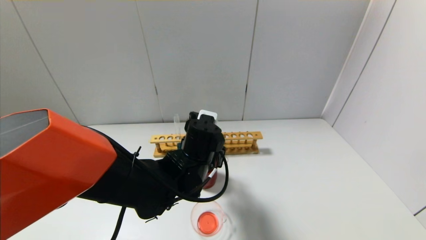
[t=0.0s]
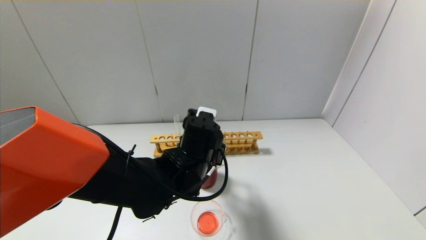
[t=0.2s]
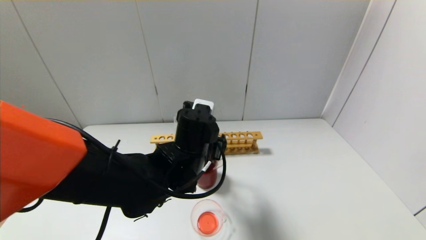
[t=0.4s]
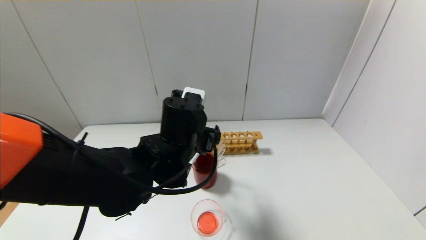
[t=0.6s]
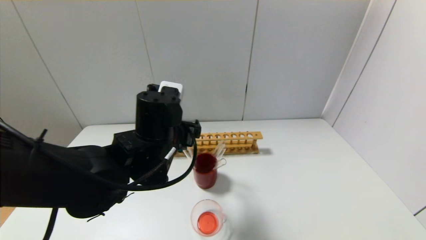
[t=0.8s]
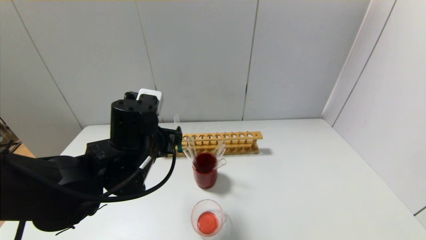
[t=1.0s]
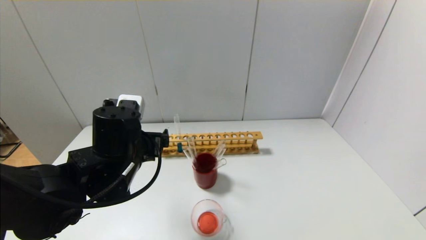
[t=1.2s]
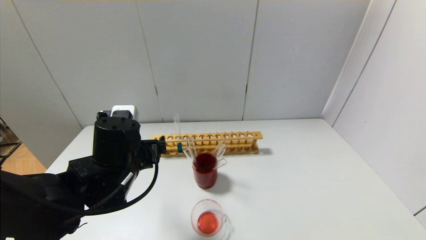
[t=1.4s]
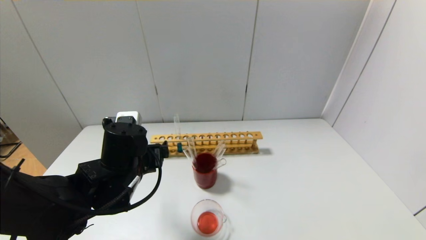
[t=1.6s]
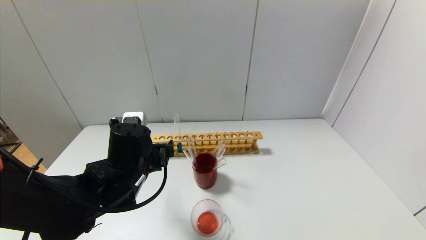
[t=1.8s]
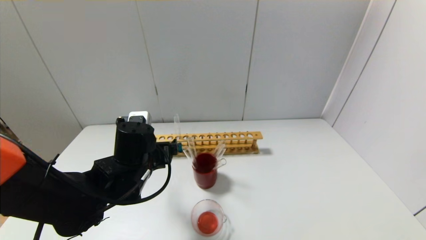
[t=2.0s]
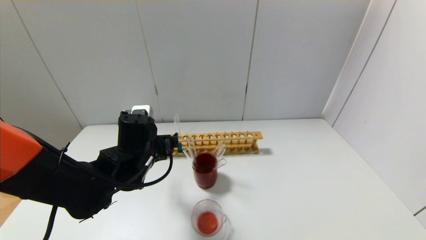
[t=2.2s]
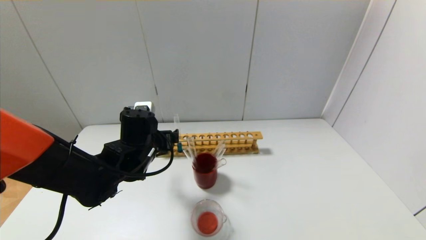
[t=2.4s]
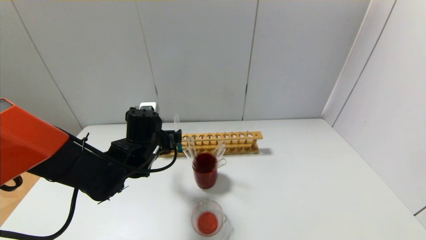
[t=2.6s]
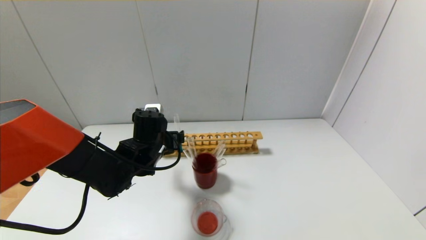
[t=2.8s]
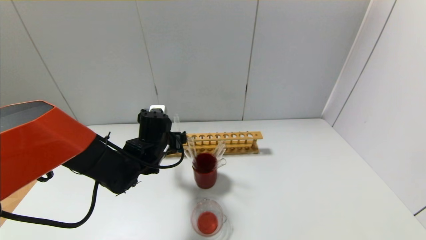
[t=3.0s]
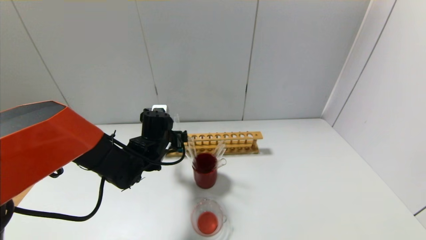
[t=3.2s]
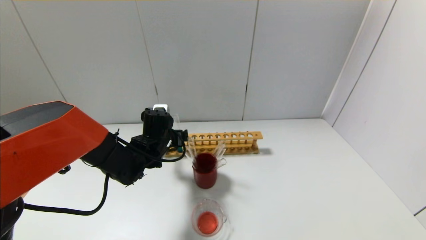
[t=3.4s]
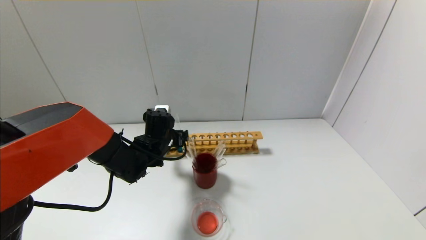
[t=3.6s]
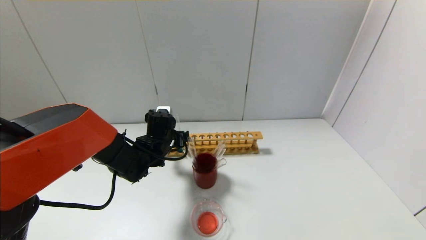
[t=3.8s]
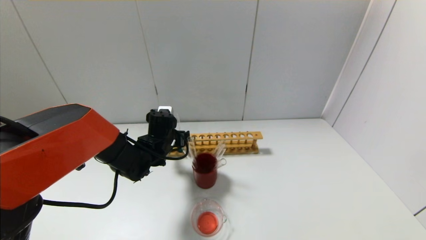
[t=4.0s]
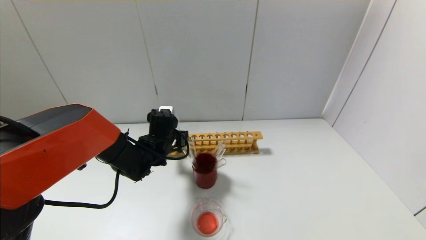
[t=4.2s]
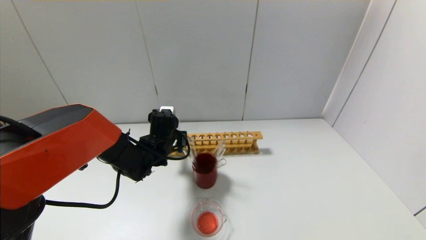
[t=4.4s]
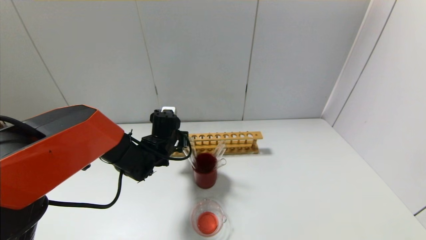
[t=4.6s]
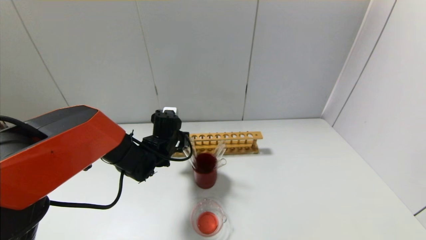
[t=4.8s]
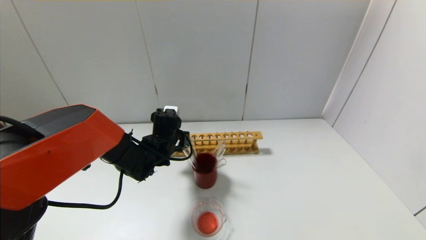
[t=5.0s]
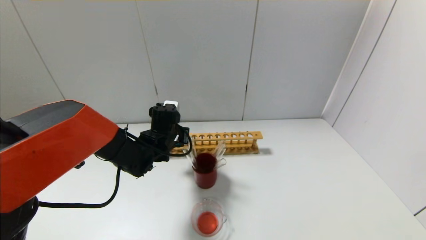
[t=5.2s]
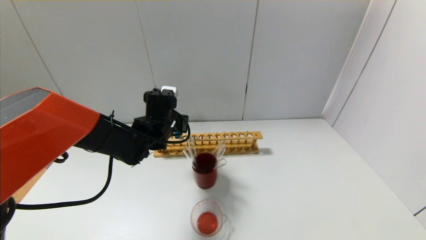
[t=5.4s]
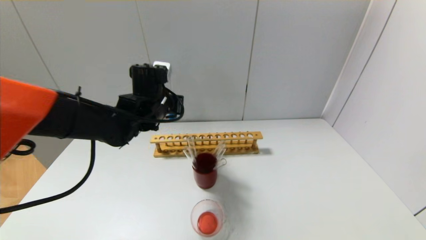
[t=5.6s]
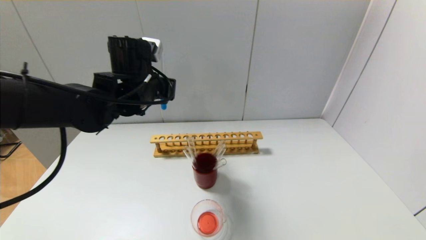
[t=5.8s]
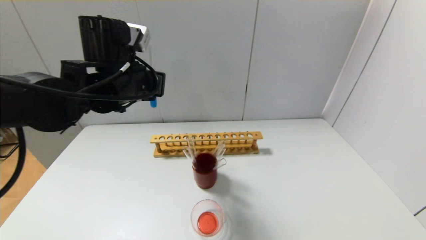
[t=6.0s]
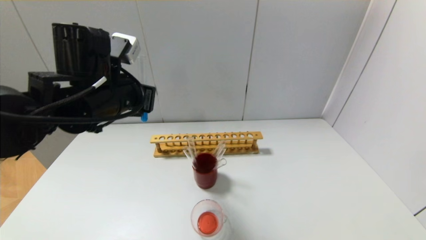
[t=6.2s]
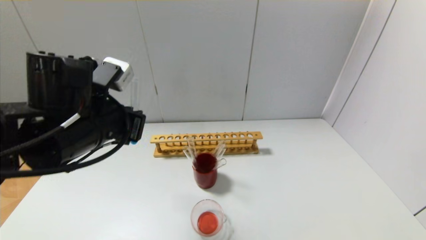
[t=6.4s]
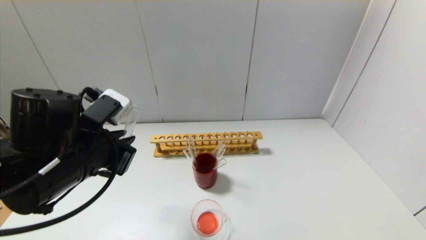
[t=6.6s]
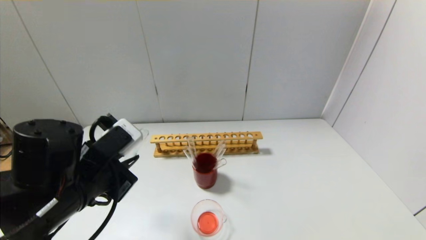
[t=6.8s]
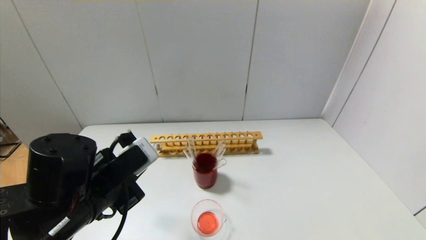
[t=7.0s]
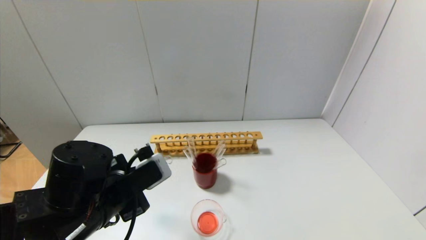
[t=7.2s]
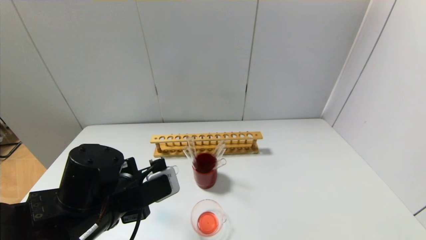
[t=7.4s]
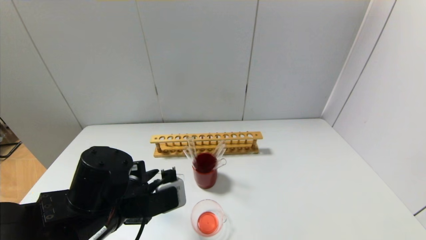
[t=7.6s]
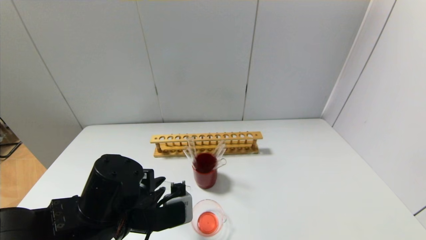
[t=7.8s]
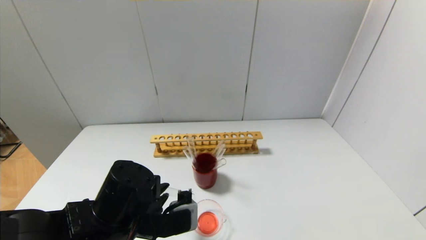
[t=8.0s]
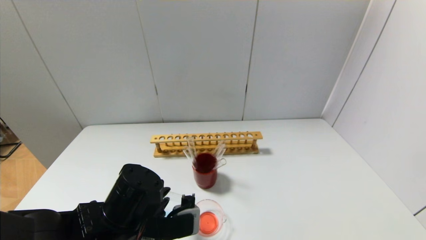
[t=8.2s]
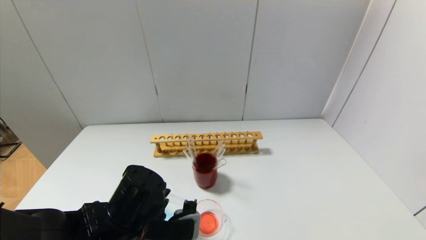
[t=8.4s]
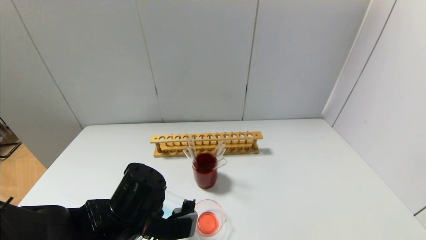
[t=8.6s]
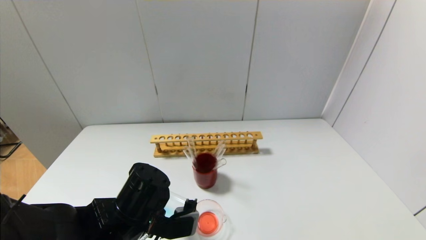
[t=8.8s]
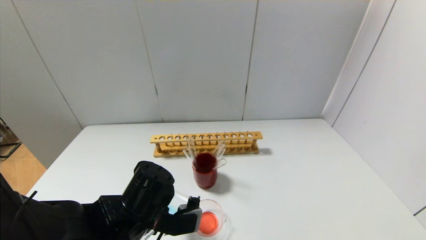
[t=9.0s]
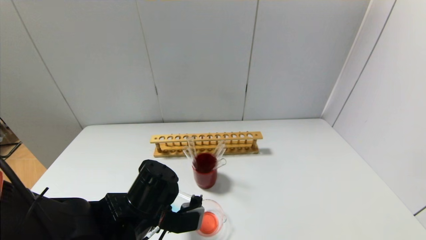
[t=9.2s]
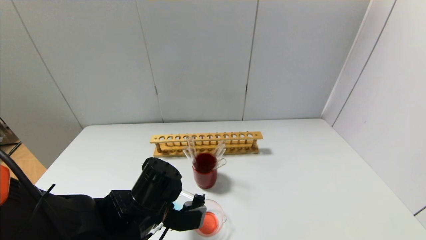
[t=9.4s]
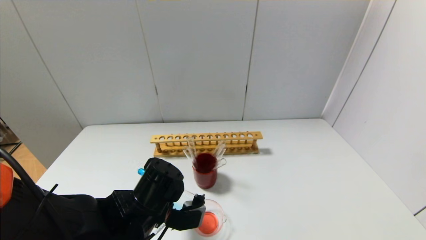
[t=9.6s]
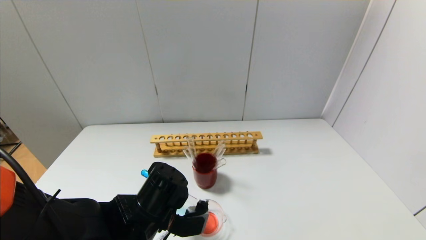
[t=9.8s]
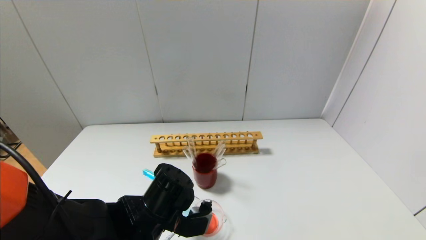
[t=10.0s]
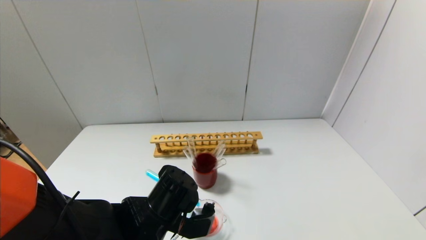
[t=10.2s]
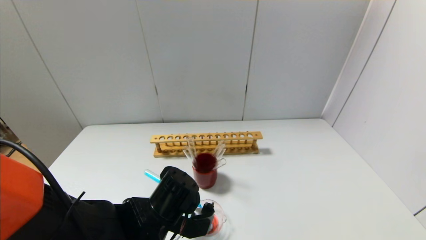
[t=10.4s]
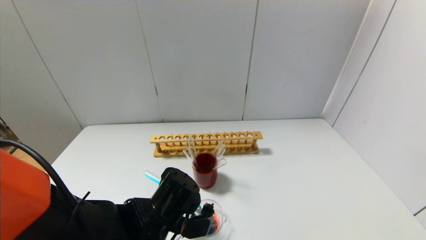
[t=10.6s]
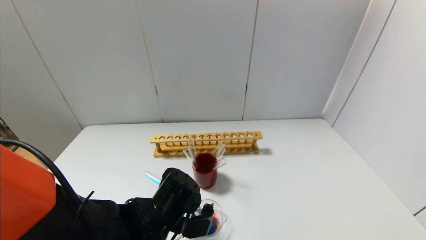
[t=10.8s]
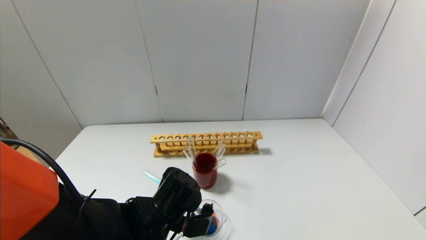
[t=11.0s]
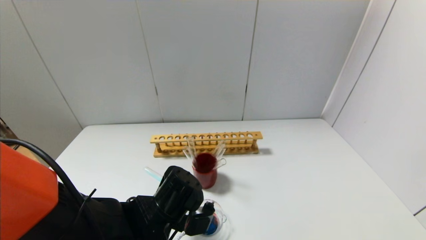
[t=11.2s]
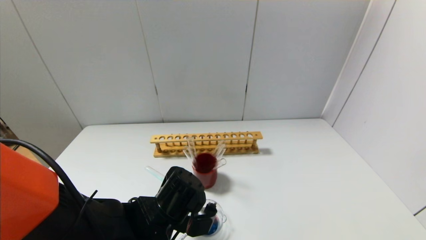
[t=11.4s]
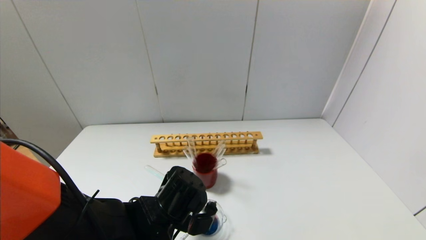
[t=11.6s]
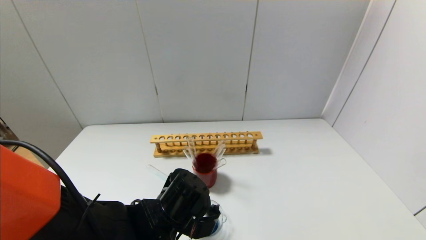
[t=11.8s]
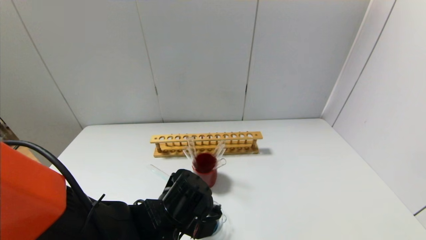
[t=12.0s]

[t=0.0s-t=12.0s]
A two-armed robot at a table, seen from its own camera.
Step, t=0.2s to t=4.8s: Grasp the blue reagent with the left gripper.
t=0.0s to t=1.6s: The left gripper shifts approximately 10 cm to the left, and opens its fingers.
t=1.6s to t=3.0s: The left gripper heads forward, covering some 10 cm.
t=3.0s to t=4.4s: The left gripper closes up.
t=4.4s to t=6.0s: The left gripper heads upward and backward, covering about 20 cm, and closes.
t=6.0s to t=7.6s: The left gripper heads downward and backward, covering some 20 cm.
t=7.6s to t=9.0s: The left gripper moves some 5 cm.
t=9.0s to t=12.0s: The grippers make only small movements.

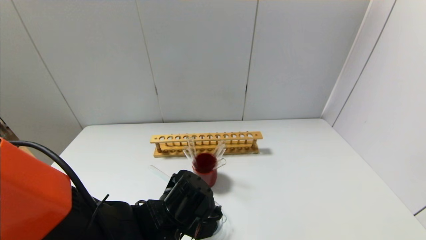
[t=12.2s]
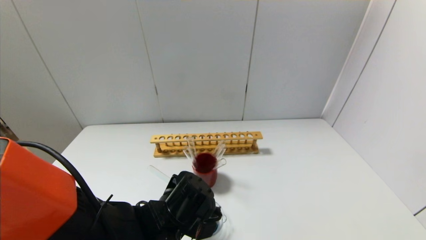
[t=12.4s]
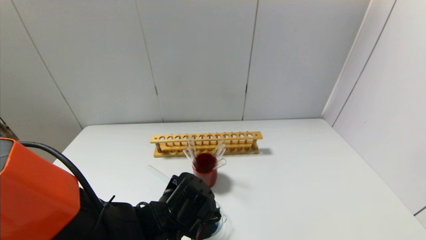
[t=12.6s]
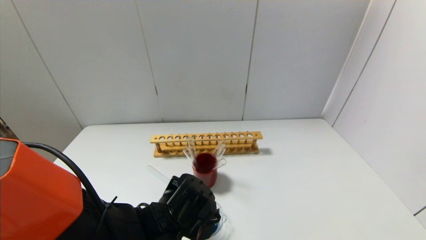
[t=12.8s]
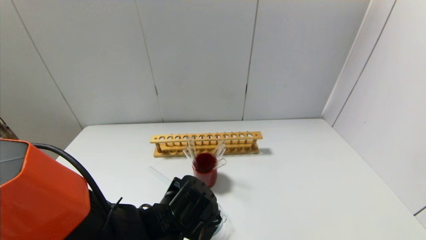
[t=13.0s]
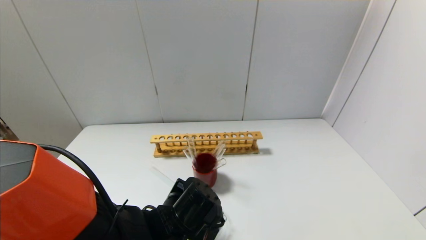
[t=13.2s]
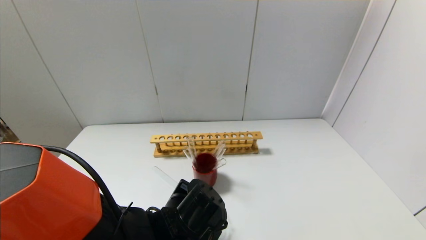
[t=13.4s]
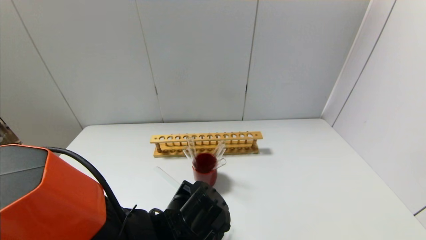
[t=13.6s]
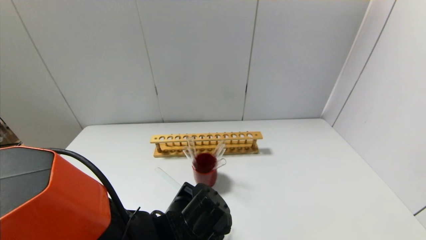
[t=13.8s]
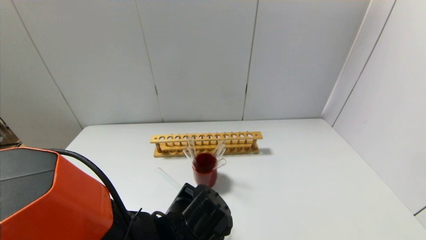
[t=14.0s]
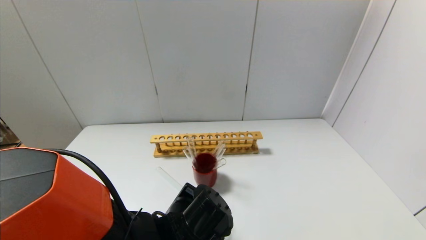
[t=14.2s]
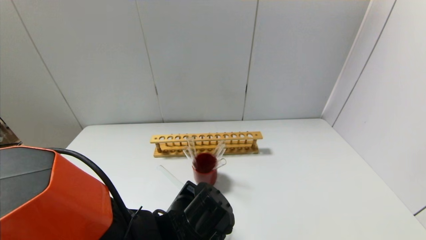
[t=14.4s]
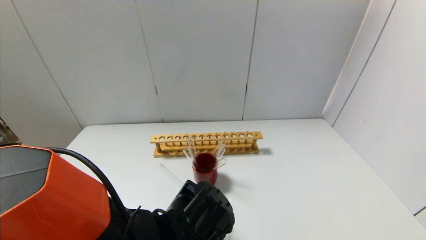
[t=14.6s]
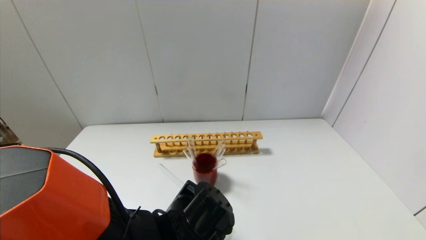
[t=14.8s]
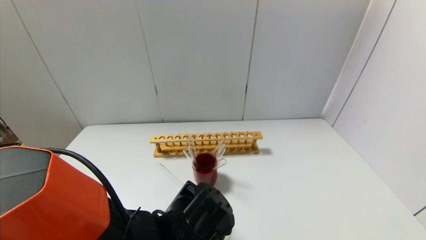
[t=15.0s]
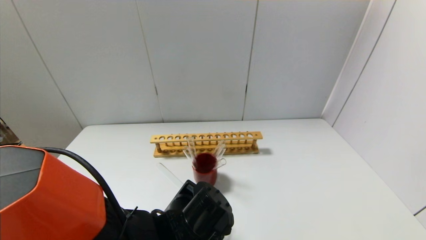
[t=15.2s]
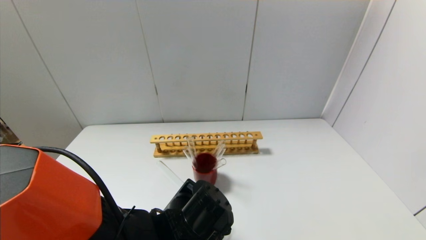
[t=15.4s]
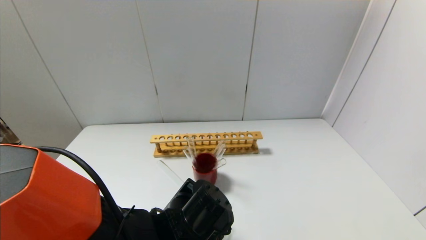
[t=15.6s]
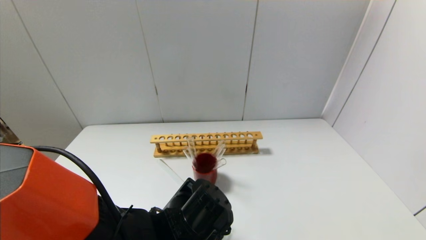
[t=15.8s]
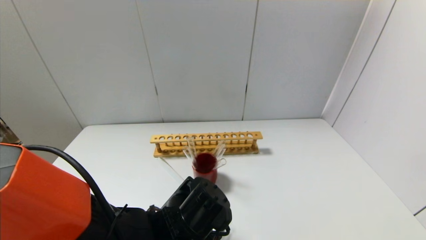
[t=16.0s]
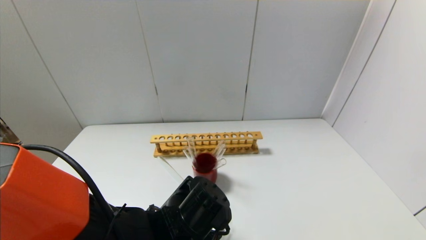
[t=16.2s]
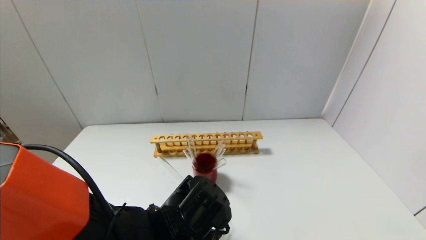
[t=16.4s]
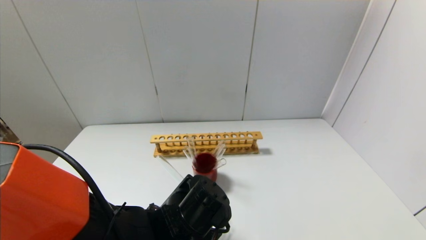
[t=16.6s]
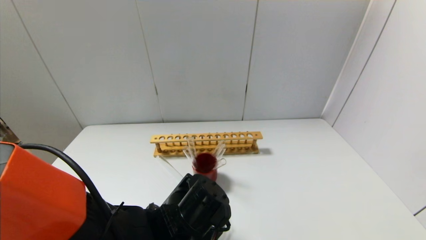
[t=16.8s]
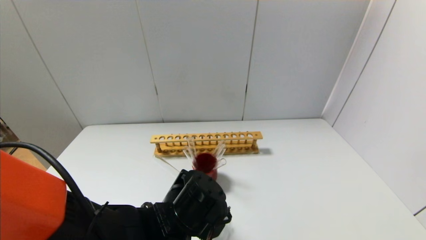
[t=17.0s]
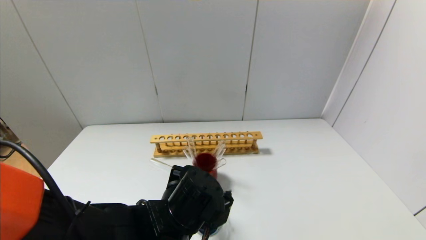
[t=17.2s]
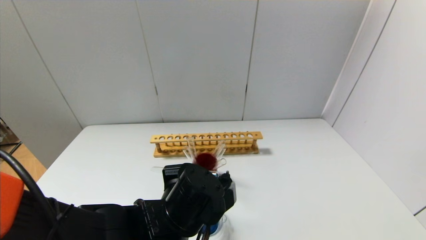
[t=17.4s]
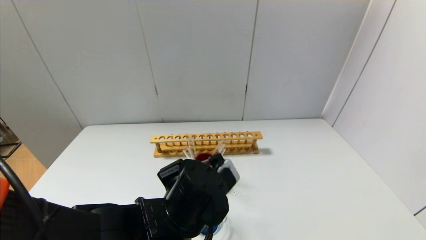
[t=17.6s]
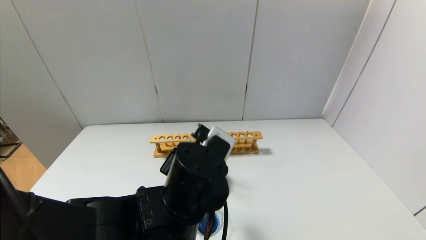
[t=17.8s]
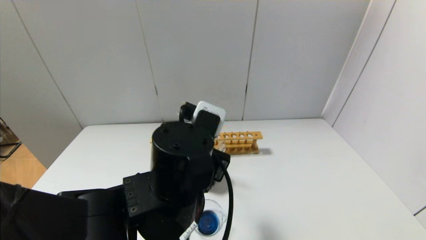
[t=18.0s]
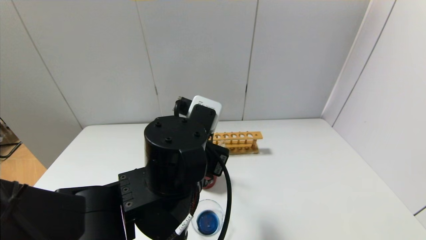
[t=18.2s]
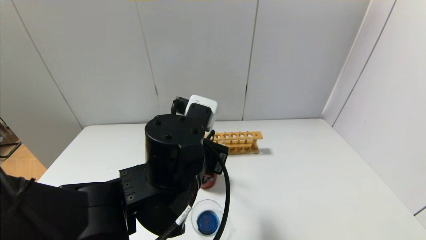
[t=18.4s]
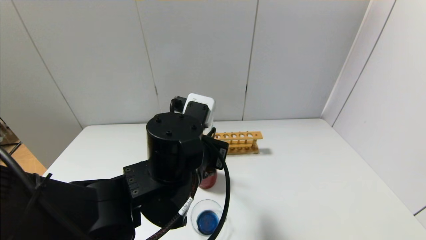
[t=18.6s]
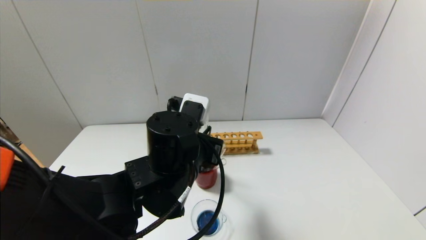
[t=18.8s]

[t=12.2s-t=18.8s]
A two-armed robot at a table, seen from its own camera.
Step, t=12.2s to t=16.4s: Pour the blue reagent into the graduated cylinder with the left gripper.
t=12.2s to t=15.4s: There are only small adjustments of the grippers.
t=17.2s to t=18.8s: The left gripper goes about 5 cm upward.
